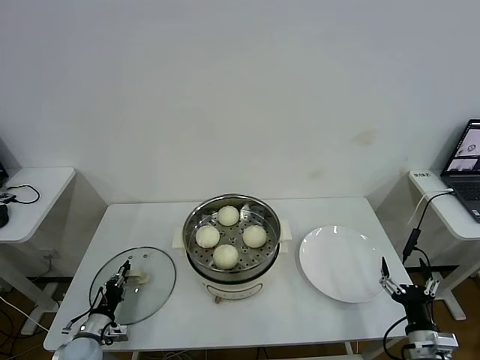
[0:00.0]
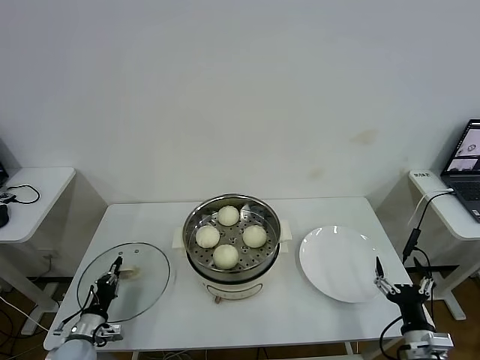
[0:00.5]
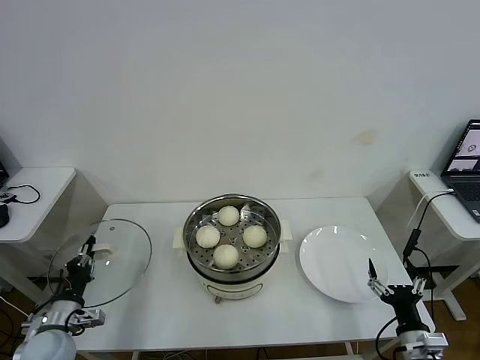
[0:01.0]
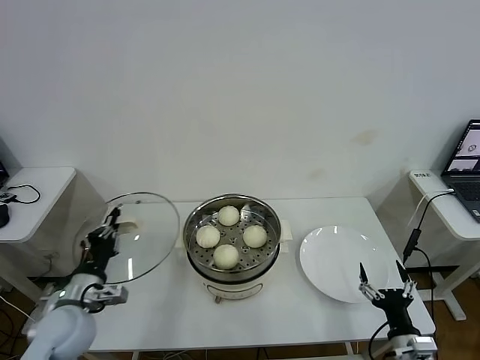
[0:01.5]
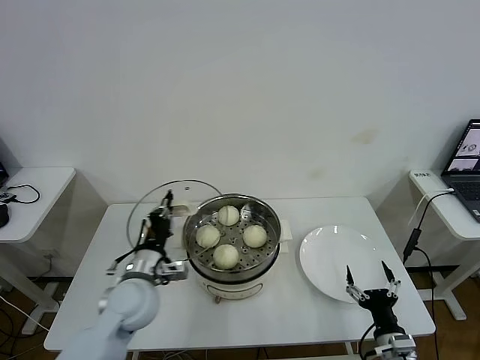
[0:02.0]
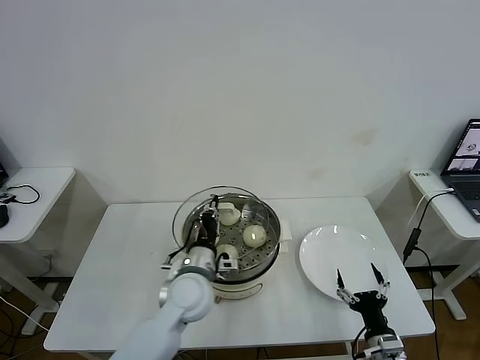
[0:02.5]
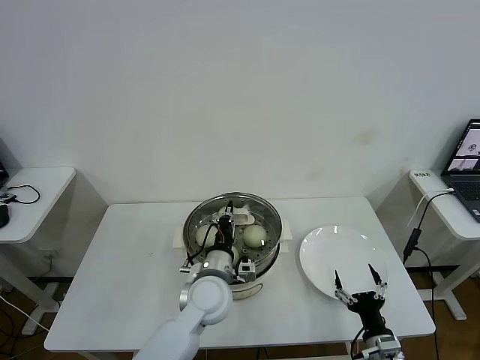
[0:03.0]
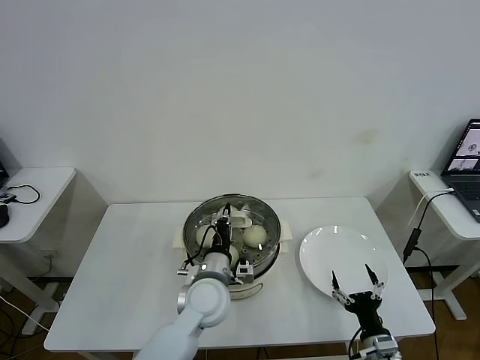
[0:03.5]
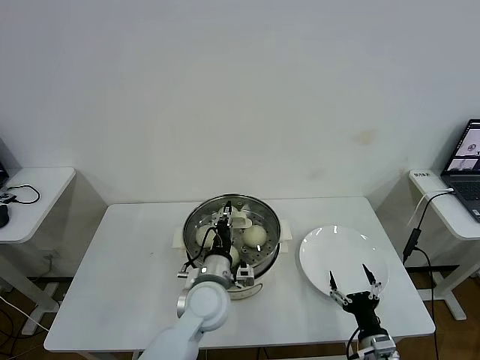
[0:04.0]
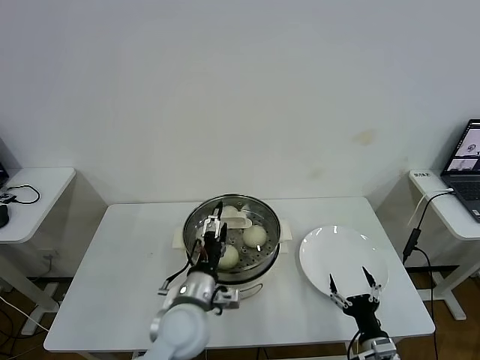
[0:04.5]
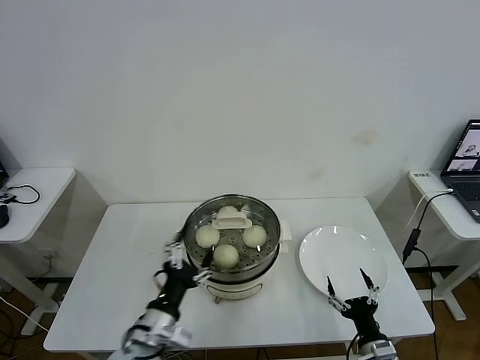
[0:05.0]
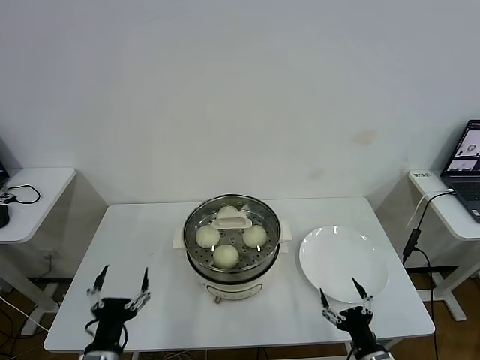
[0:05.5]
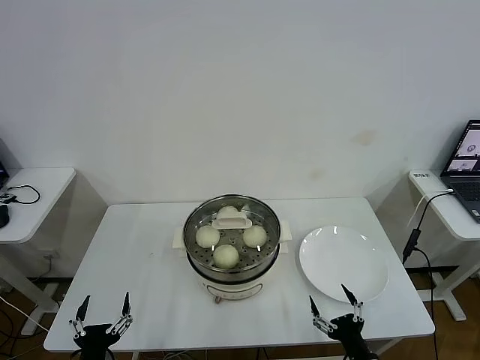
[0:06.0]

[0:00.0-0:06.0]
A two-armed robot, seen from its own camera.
Task of the whole recording: take steamed baozi put them in steamer then cover it.
Step, 0:00.5 to 0:04.0: Place the pot lid on the steamer with left gripper.
0:00.0 to 0:02.0: The left gripper shifts approximately 25 cm upward and to the right; the right gripper moves to the left, roughly 5 cm.
0:02.0 to 0:04.0: The left gripper shifts some 15 cm to the right.
0:04.0 to 0:06.0: The left gripper moves backward and to the left, approximately 30 cm, and opens; the right gripper goes approximately 5 cm backward.
